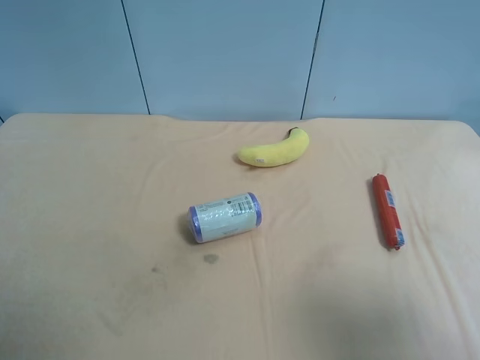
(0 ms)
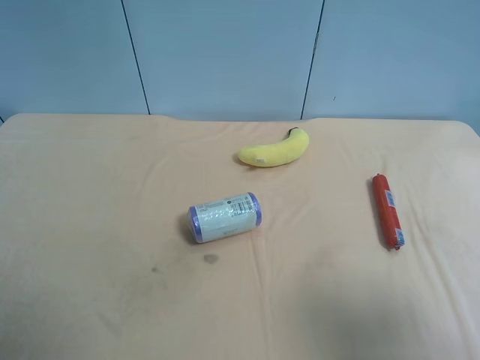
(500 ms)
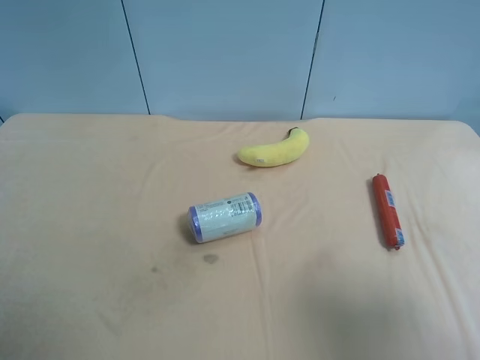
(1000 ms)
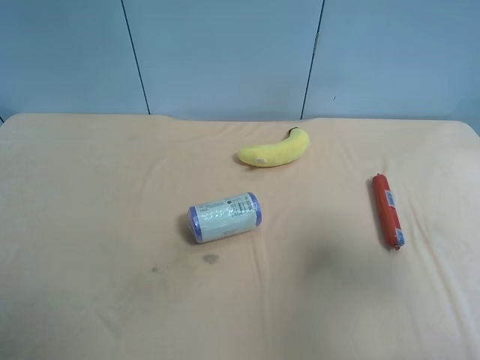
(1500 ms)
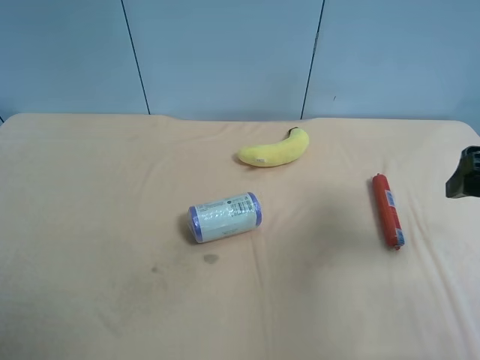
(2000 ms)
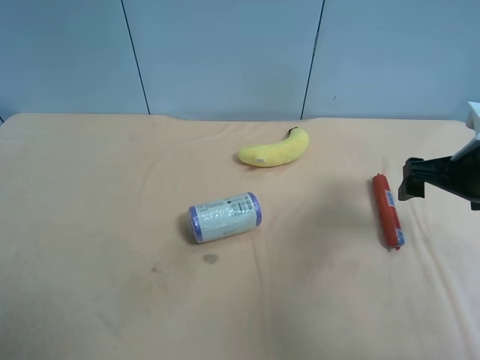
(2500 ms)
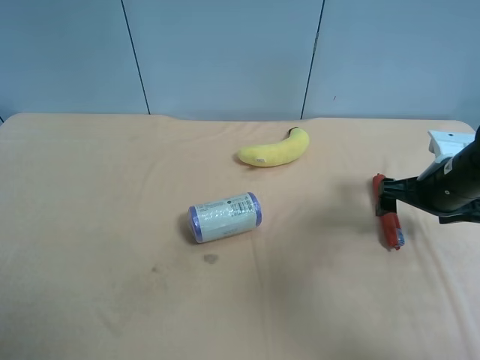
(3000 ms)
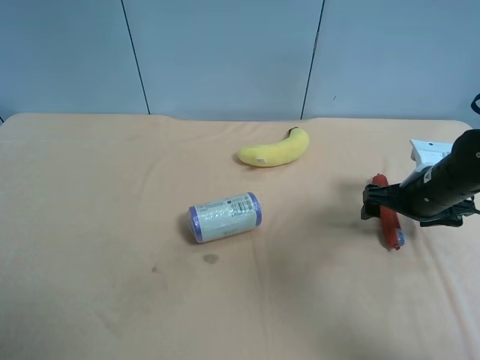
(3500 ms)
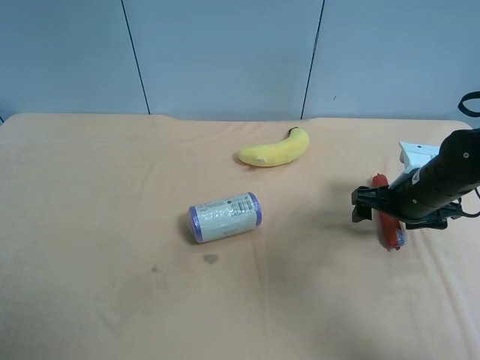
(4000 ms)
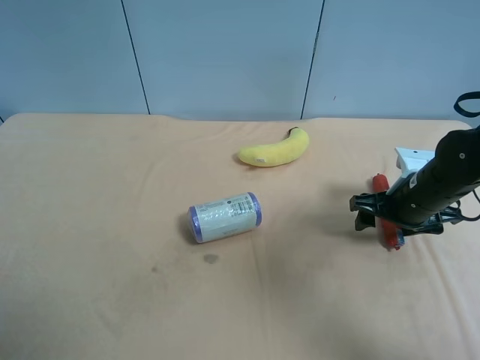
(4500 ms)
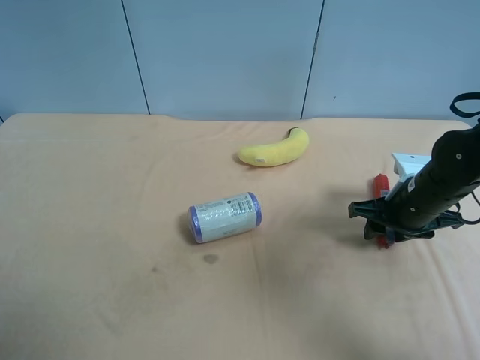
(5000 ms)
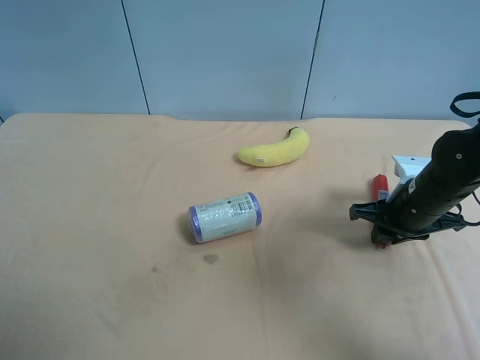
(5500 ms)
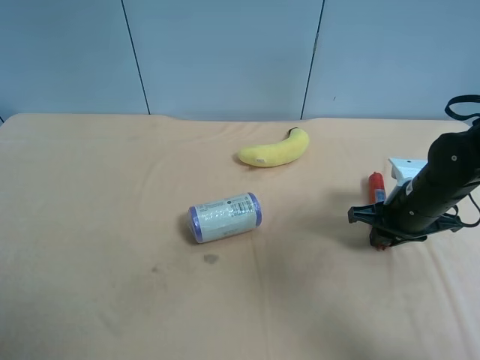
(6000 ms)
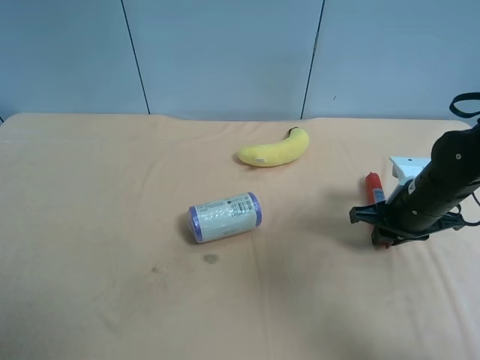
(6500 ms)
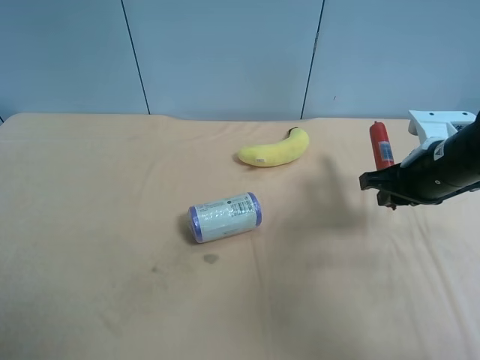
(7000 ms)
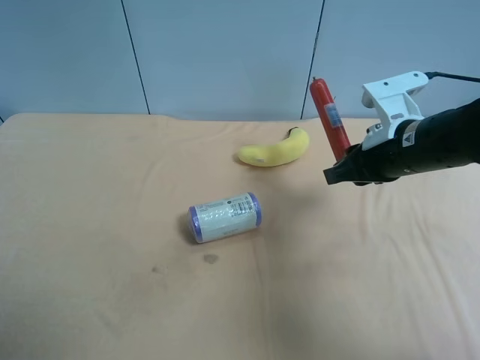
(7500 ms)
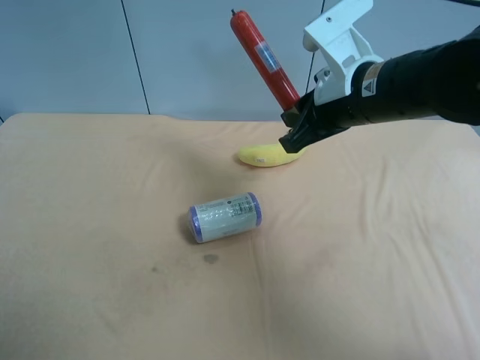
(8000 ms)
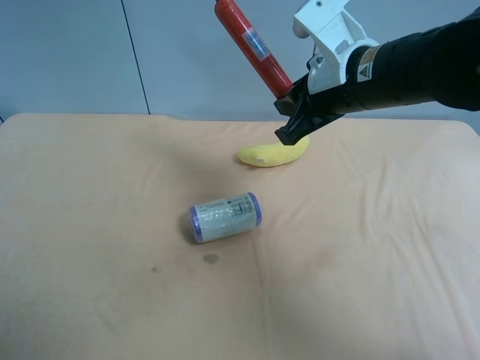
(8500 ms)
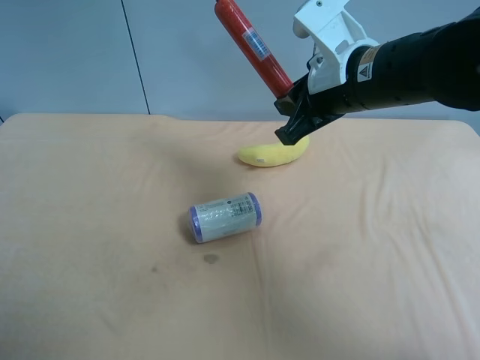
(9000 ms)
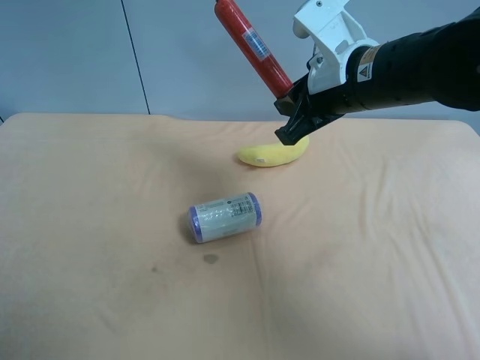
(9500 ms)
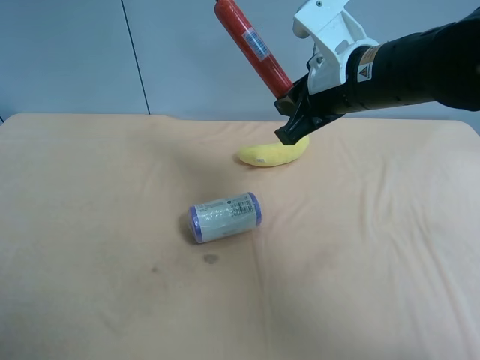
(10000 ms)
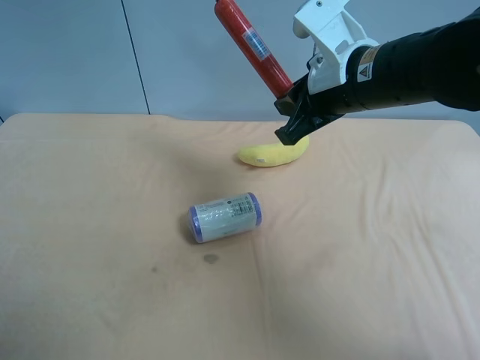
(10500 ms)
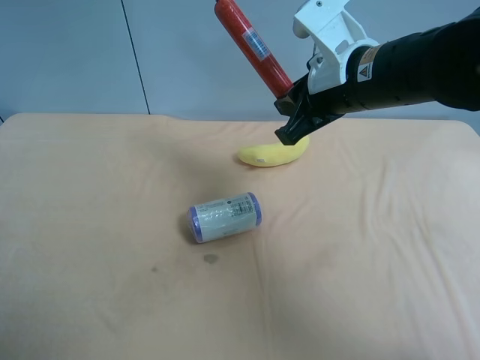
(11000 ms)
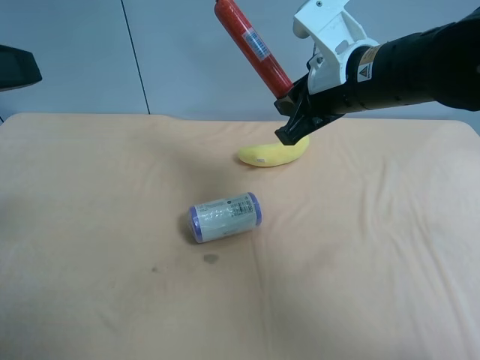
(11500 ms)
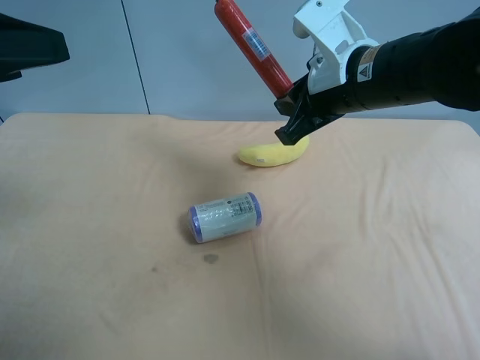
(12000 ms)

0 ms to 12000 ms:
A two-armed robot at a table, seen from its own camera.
Task of the whole recording: use the right gripper to pick up the item and transfer it from the right gripper to the left gripper.
0 ms to 2000 ms: The right gripper shifts about 20 cm forward.
2000 ms to 4000 ms: The right gripper goes some 15 cm downward and forward.
4000 ms to 6000 ms: The right gripper closes up.
6000 ms to 8000 ms: The right gripper shifts about 20 cm upward and to the left.
8000 ms to 10000 ms: There are only small adjustments of the grippers.
10000 ms to 12000 ms: The left gripper is displaced forward by approximately 15 cm.

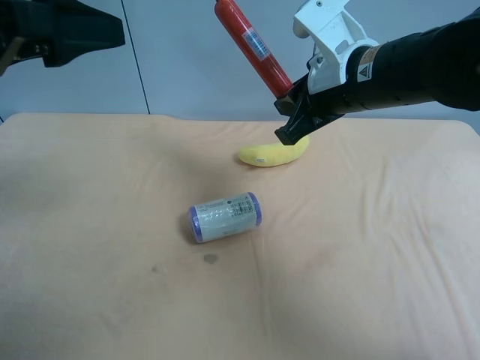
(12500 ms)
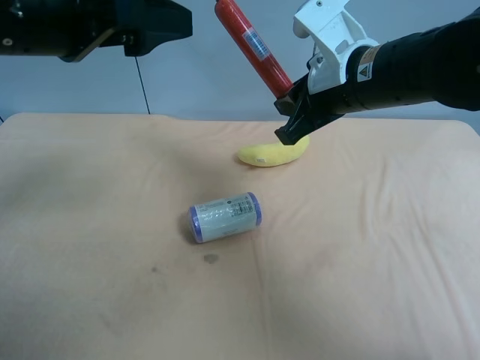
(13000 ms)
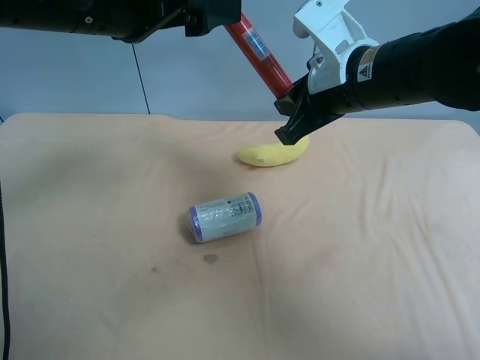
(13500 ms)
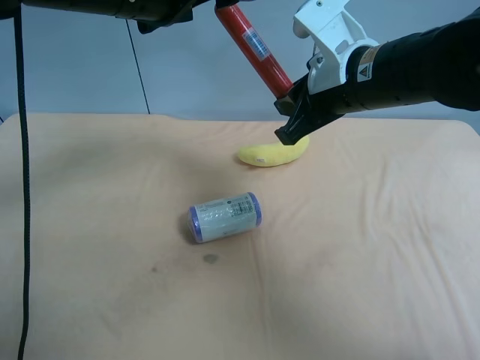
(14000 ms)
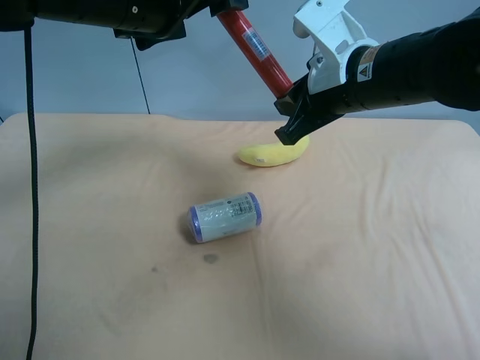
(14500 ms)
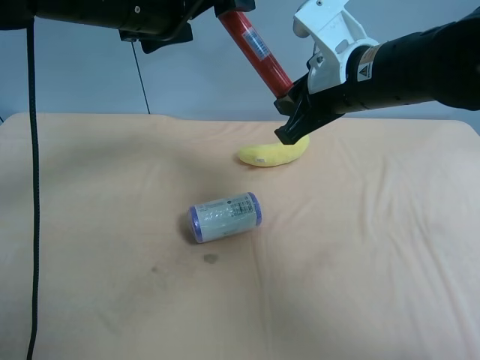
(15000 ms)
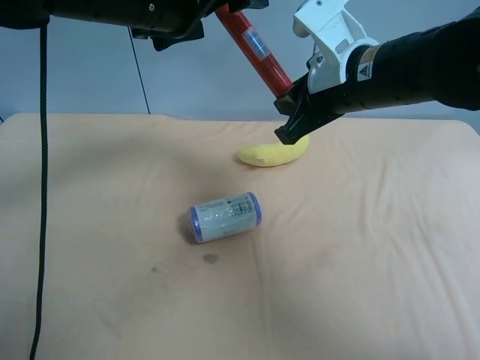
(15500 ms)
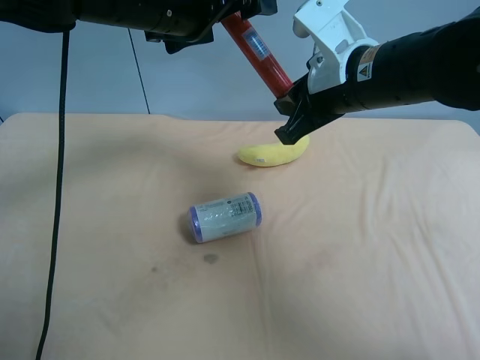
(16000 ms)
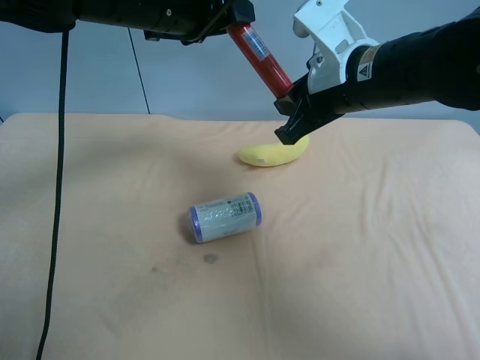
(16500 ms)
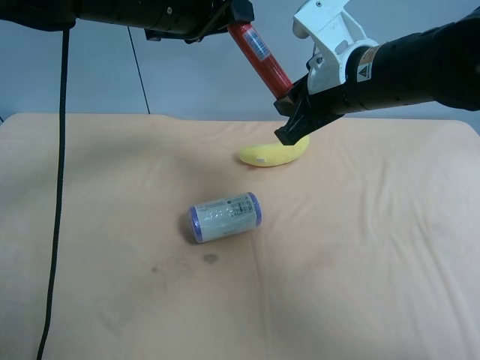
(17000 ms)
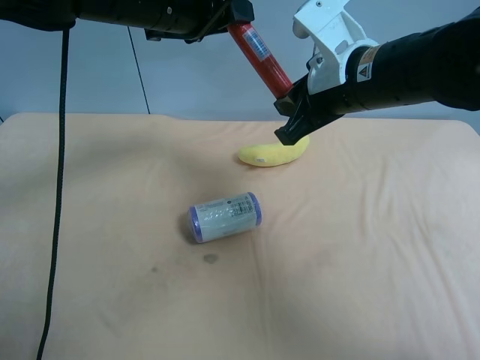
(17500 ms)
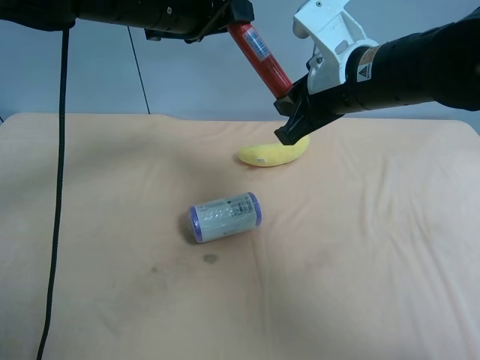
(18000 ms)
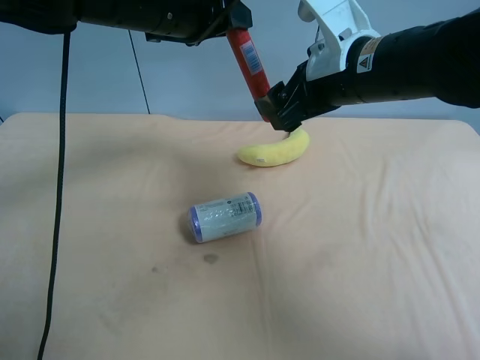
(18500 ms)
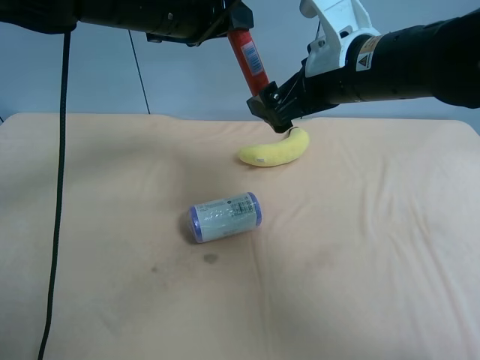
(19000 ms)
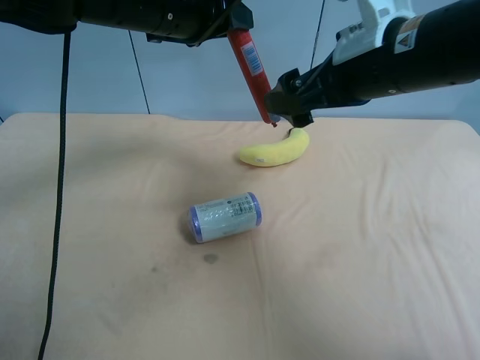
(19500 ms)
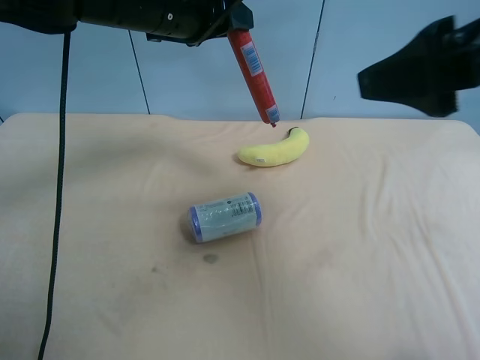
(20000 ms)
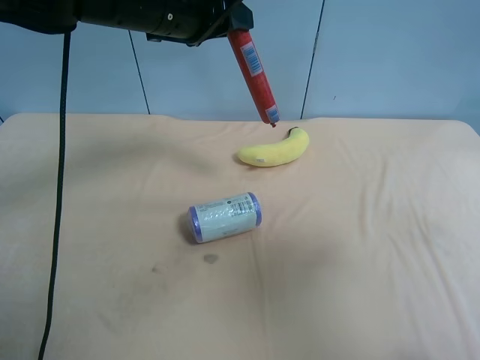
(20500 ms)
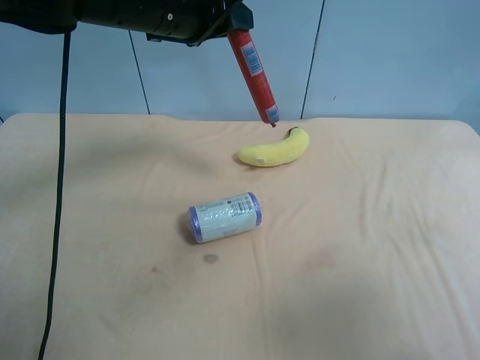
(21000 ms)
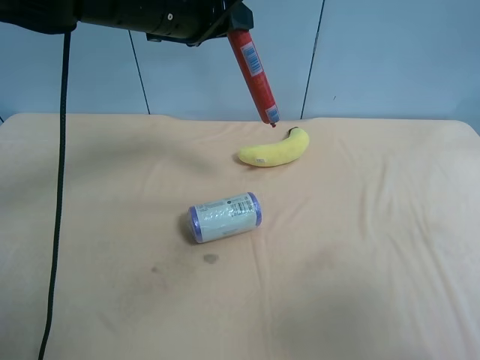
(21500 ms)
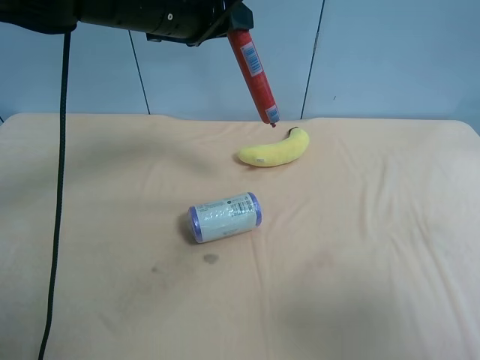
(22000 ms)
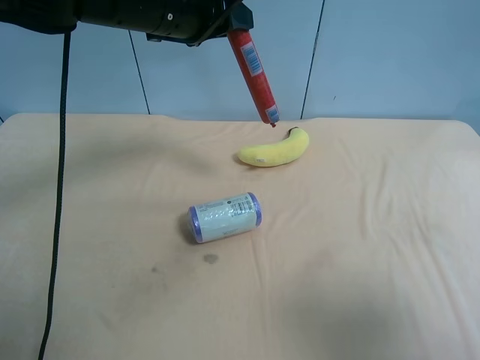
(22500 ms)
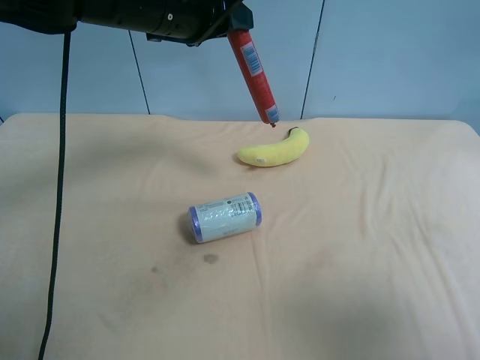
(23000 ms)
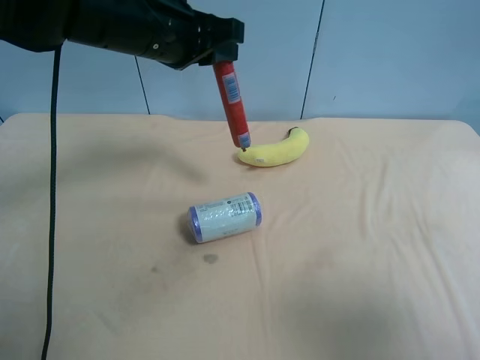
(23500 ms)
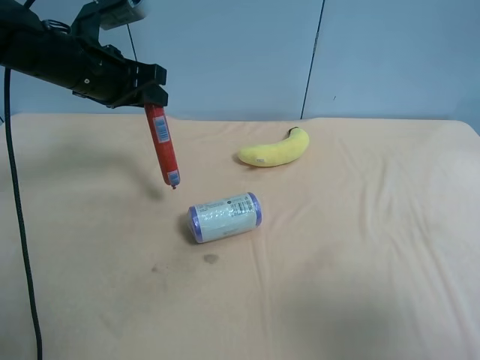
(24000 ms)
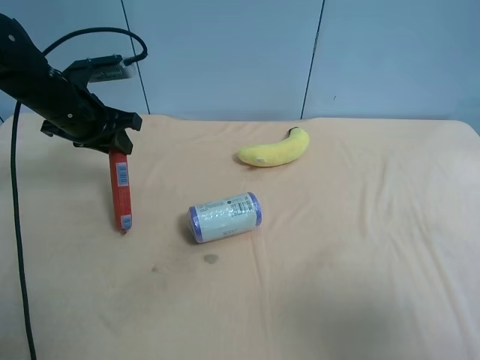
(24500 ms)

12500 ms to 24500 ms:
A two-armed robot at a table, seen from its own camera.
Task of the whole recording: use the right gripper to pick up the item and transfer it from the right gripper to the left gripper.
12500 ms to 14500 ms: The left gripper moves forward and to the right, about 15 cm.
14500 ms to 16500 ms: The left gripper closes.
16500 ms to 18500 ms: The right gripper opens.
18500 ms to 20500 ms: The right gripper travels backward and to the right by roughly 25 cm.
20500 ms to 22500 ms: The right gripper heads downward and backward, covering some 10 cm.
22500 ms to 24500 ms: The left gripper travels to the left and downward by approximately 20 cm.

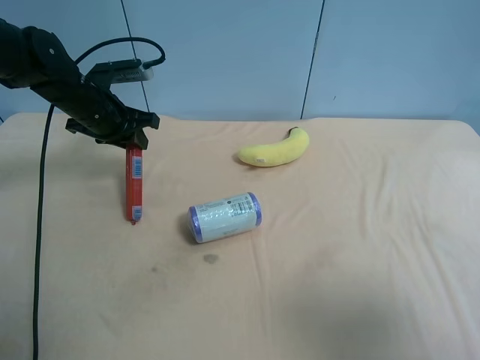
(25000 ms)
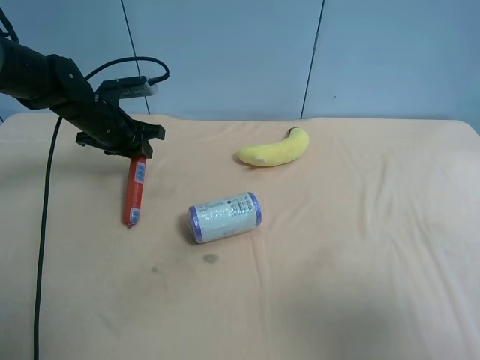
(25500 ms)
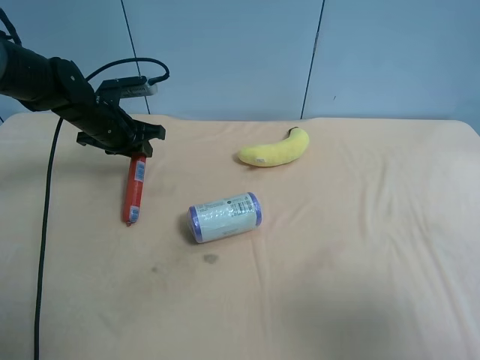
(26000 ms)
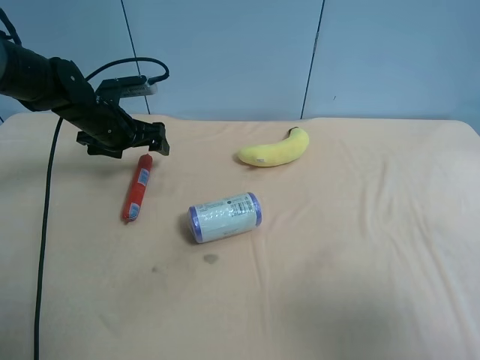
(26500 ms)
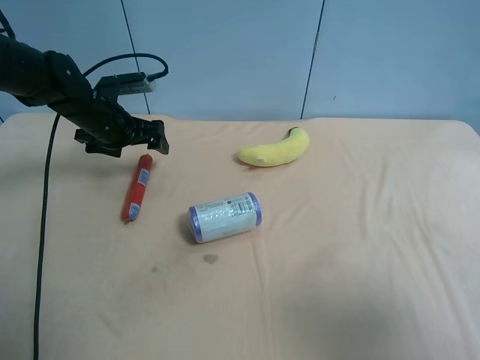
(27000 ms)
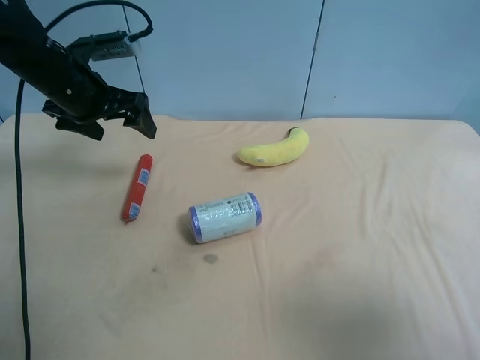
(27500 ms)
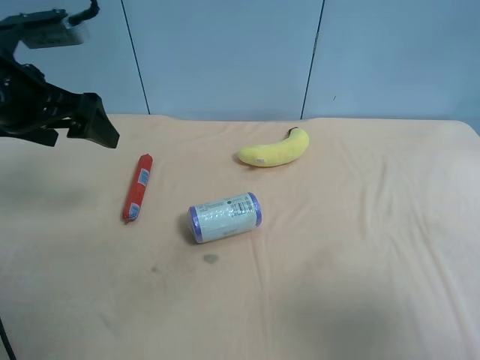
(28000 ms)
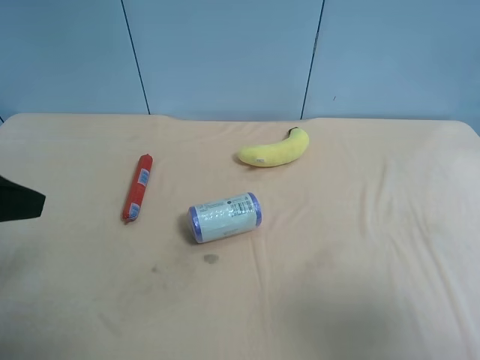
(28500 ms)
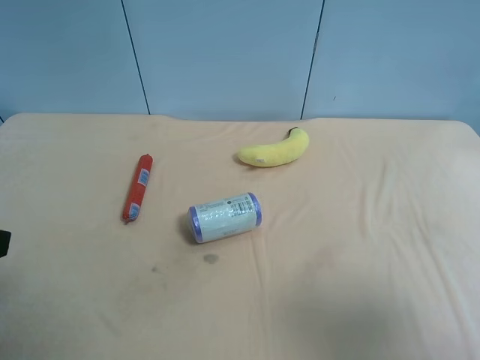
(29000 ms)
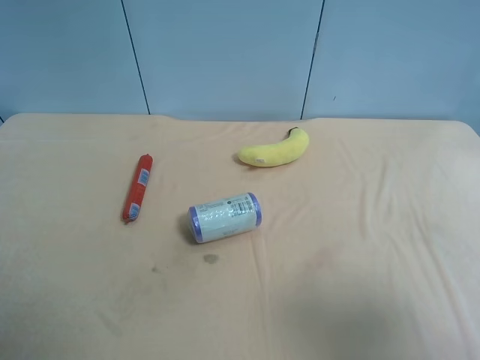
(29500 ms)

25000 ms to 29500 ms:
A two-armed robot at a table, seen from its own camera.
Task of the whole recording: use the right gripper to pick up the item and transfer it from the right gripper to the left gripper.
25000 ms to 27000 ms: The left gripper opens its fingers.
27000 ms to 29500 ms: The left gripper moves backward, roughly 40 cm.
